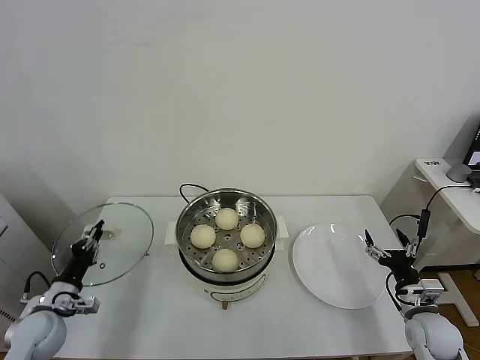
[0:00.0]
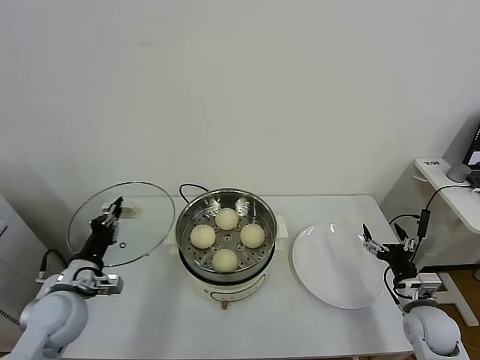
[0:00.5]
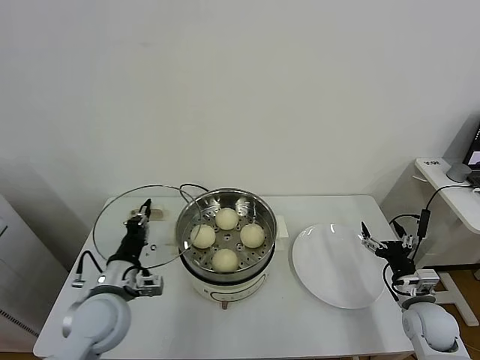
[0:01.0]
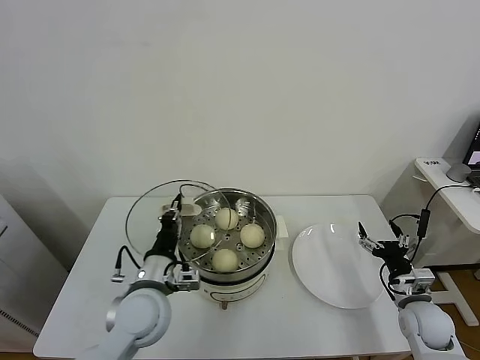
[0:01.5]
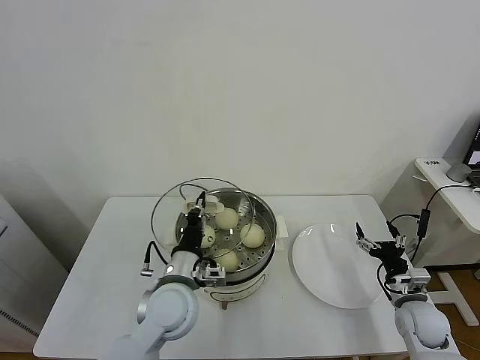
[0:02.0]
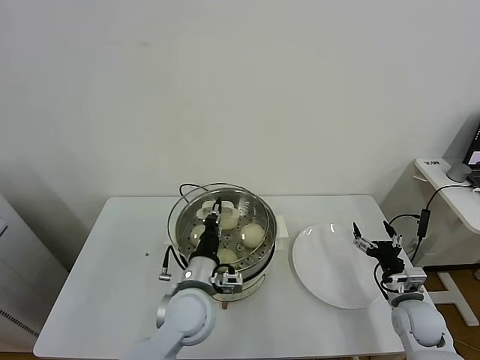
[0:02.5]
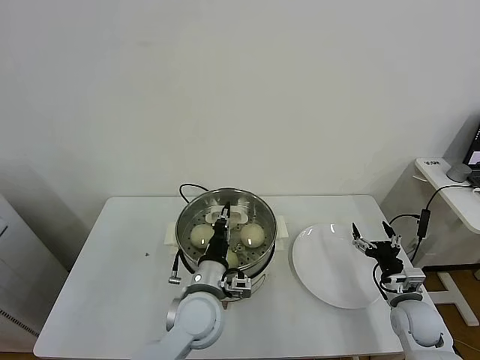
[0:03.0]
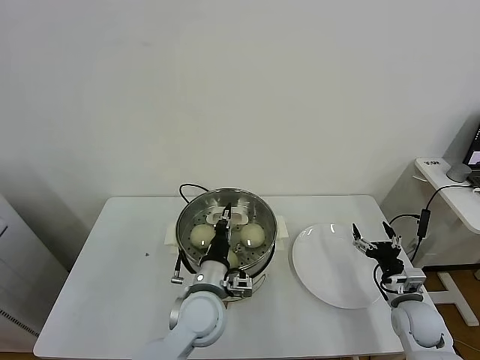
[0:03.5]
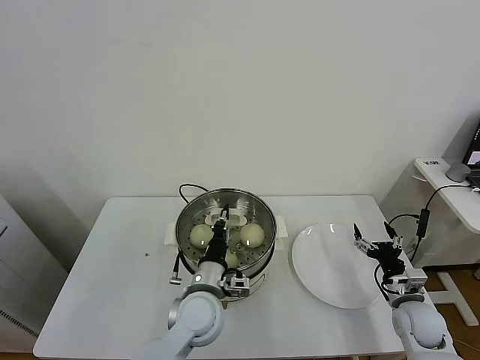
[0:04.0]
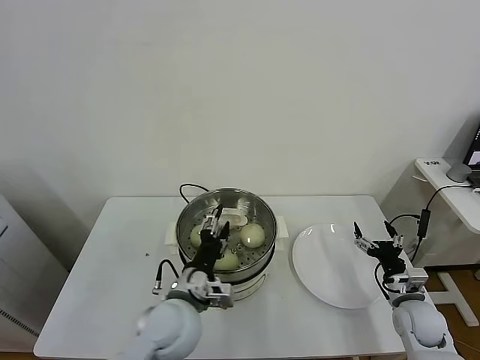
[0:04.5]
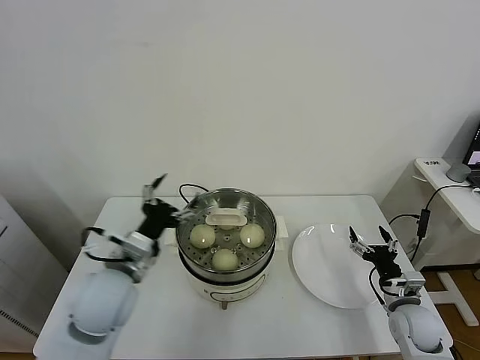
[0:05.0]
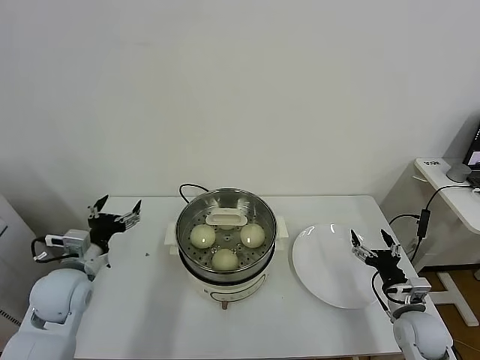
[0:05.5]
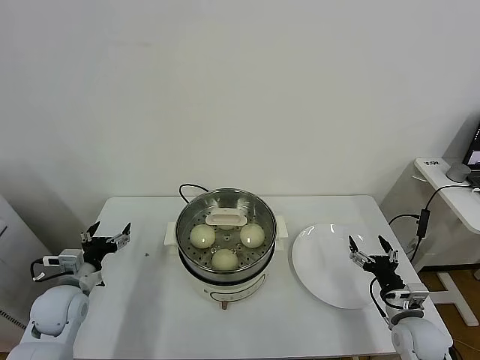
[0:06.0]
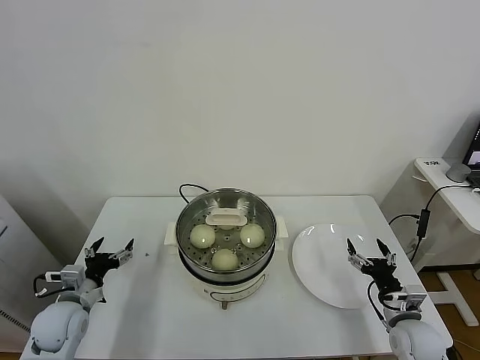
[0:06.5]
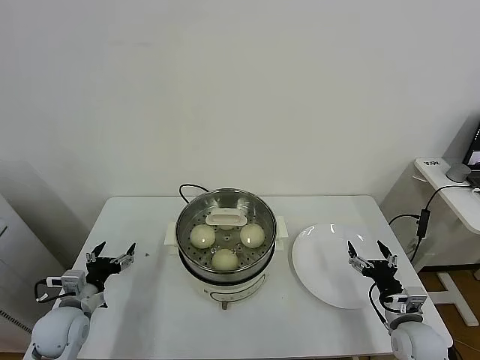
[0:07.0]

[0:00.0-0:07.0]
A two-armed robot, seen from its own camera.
Task of the whole recording: take steamed baozi put them in steamer.
Step, 0:00.0 to 0:04.5: Place the pot lid on the steamer with left gripper.
0:00.0 to 0:02.0: The left gripper goes about 30 cm to the right.
0:02.0 to 0:03.5: The left gripper moves to the right, roughly 5 cm.
0:03.5 to 0:05.0: The left gripper goes approximately 15 cm to the left and upward, and opens.
0:05.0 to 0:07.0: The left gripper goes roughly 25 cm to the left and downward.

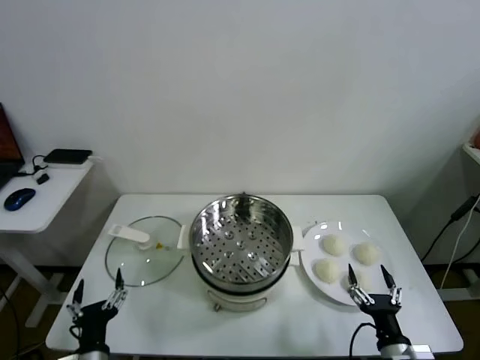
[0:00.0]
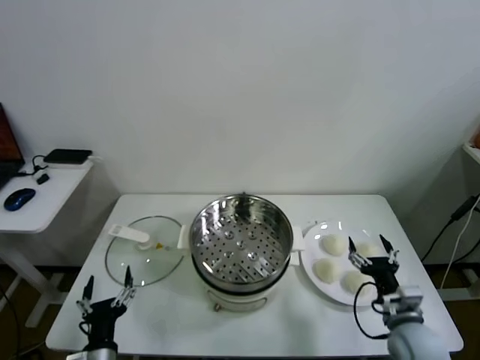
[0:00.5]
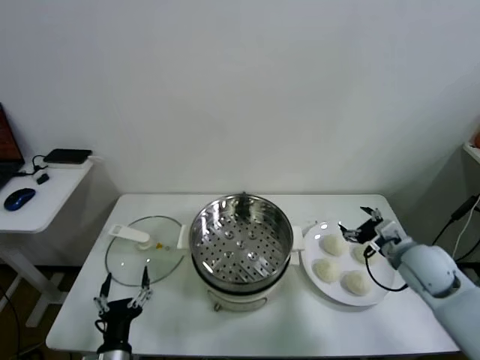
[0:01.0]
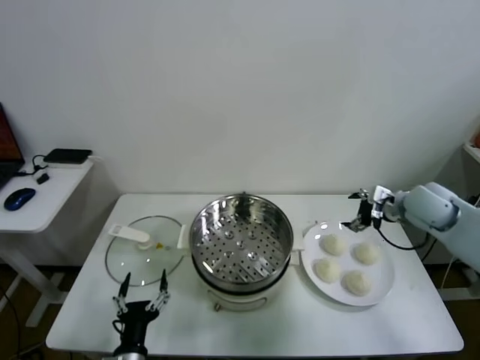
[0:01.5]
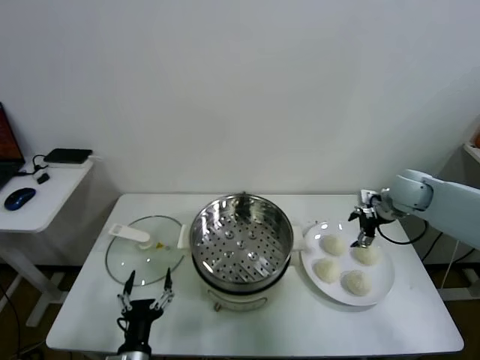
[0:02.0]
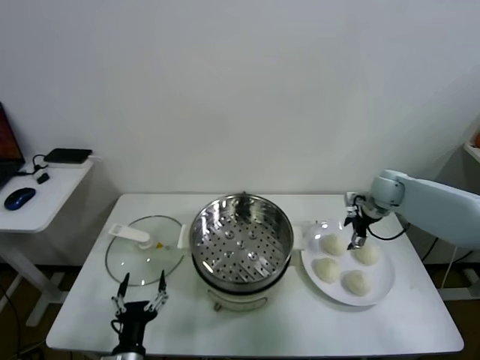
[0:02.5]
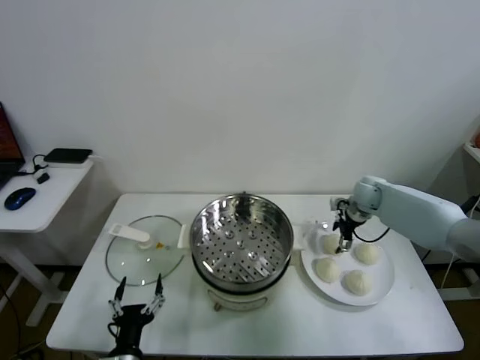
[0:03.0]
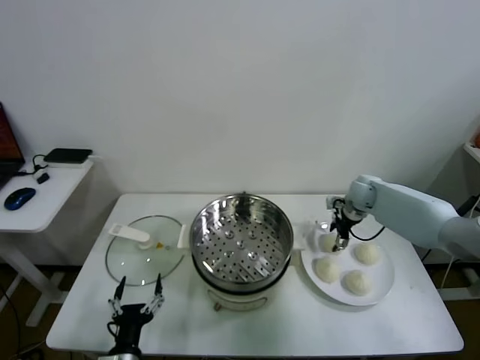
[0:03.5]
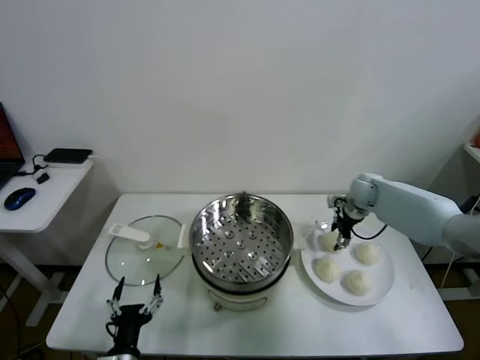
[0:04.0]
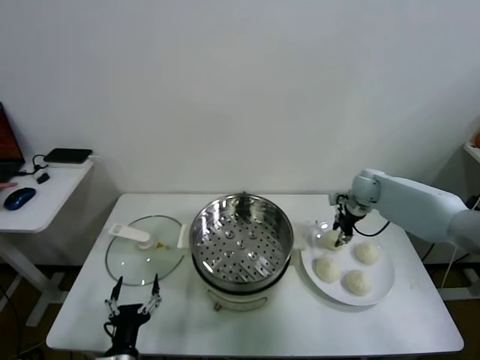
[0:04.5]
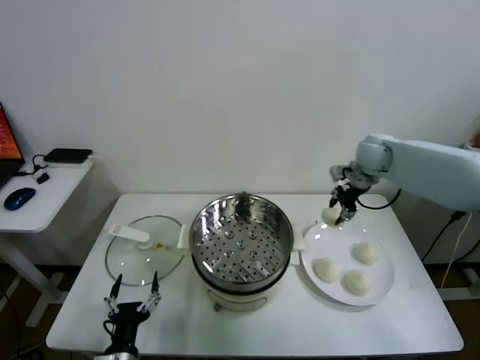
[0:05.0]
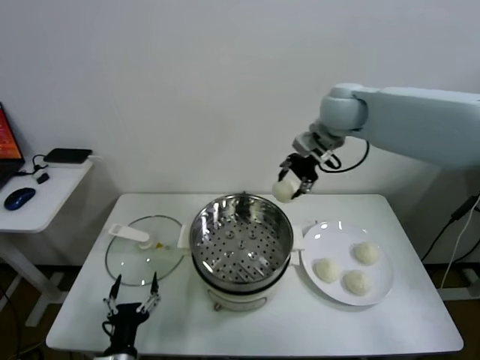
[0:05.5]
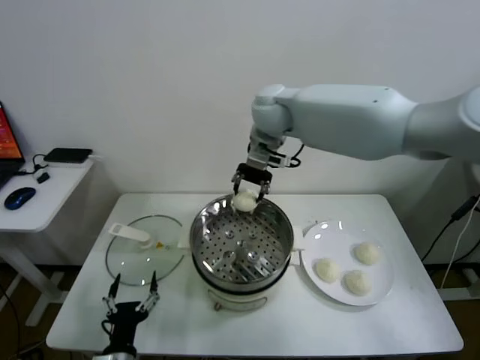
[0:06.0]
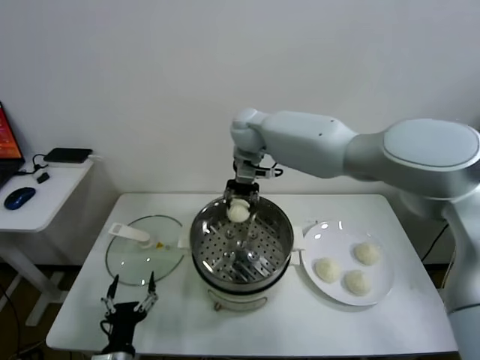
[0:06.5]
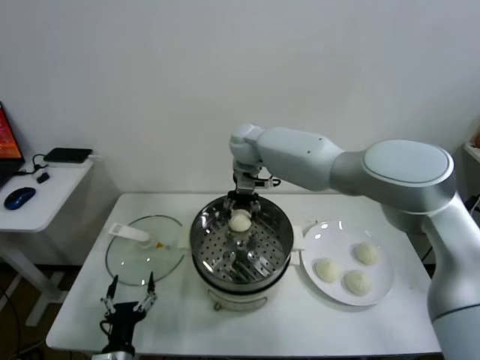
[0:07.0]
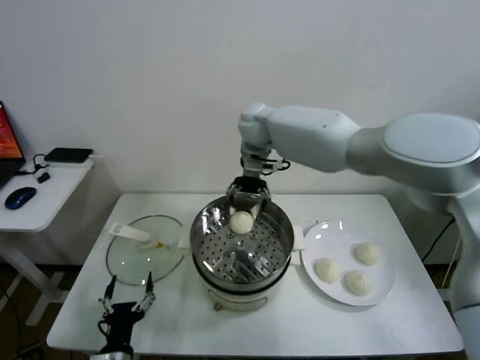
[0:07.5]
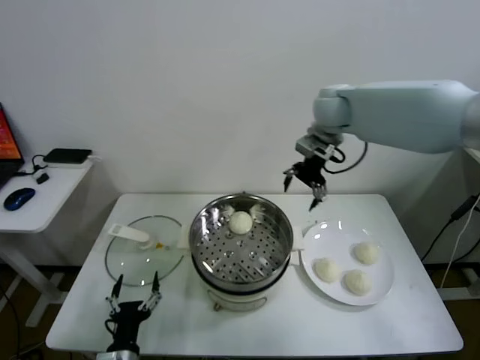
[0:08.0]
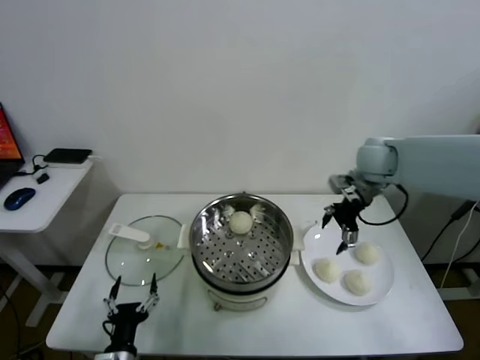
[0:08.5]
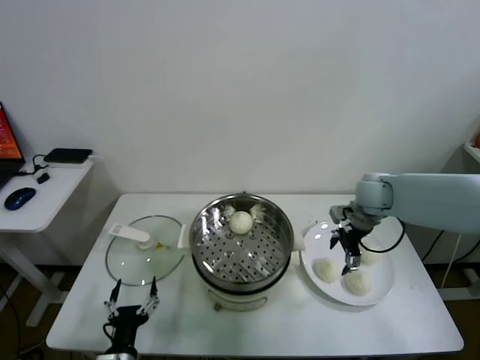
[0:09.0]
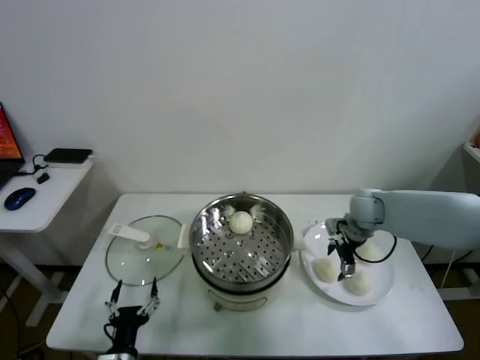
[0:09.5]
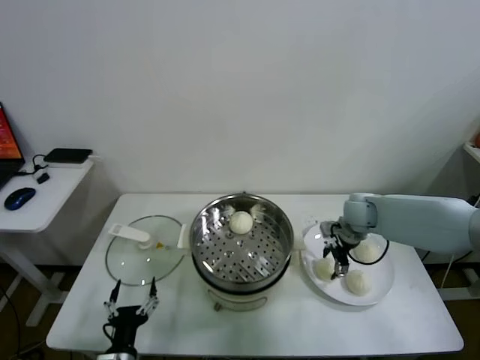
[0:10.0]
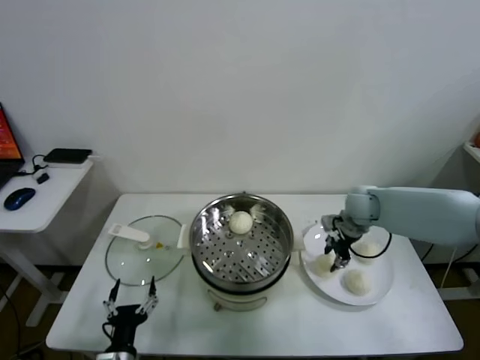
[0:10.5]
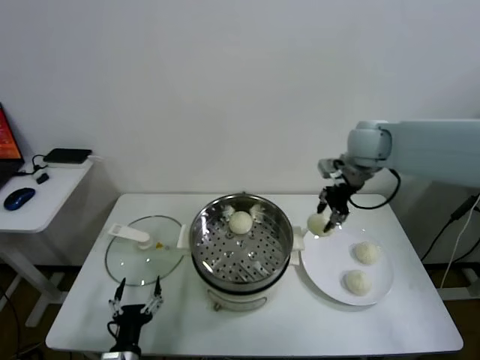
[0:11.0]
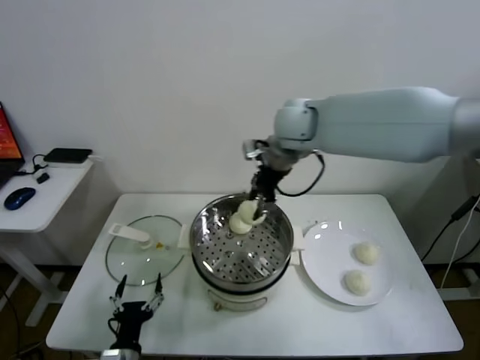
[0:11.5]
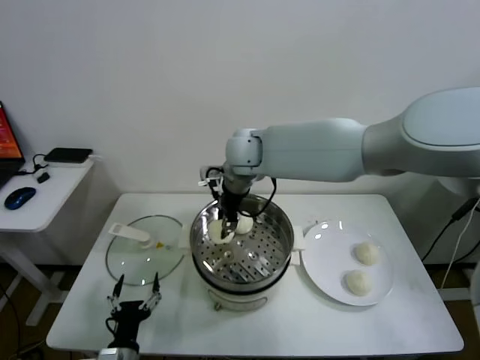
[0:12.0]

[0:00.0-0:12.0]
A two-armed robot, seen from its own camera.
Task of the whole recording: take steamed baozi put them in steamer.
Step, 0:00.0 to 0:04.0: Grasp the baozi in the plate with right gripper.
Step, 0:04.5 to 0:07.0: Place the baozi on the steamer with right gripper.
Step, 0:07.5 to 0:10.0: Grasp the baozi in the plate with right gripper.
0:02.0 to 0:04.0: The right gripper is displaced forward and downward by approximately 10 cm, and closes its fingers.
0:04.0 to 0:06.0: The right gripper shifts about 40 cm to the left and upward.
0:06.0 to 0:08.0: The right gripper is displaced to the right by roughly 20 cm, and opens.
0:08.0 to 0:10.0: The right gripper moves downward, some 25 cm.
0:10.0 to 0:12.0: The right gripper goes some 35 cm to the left and upward, and closes its fingers.

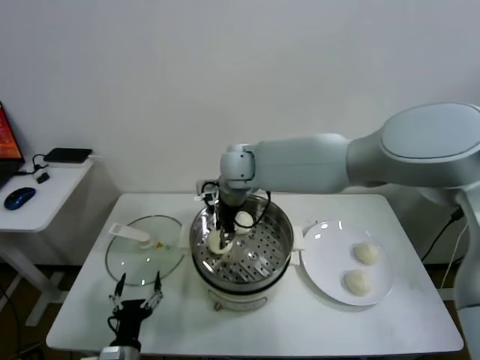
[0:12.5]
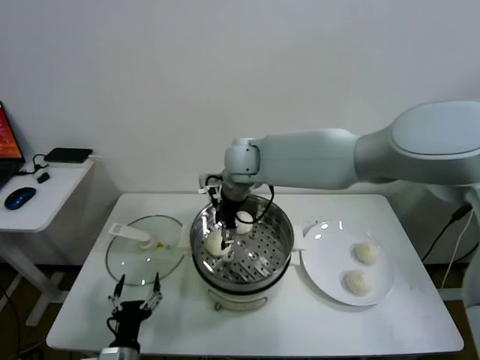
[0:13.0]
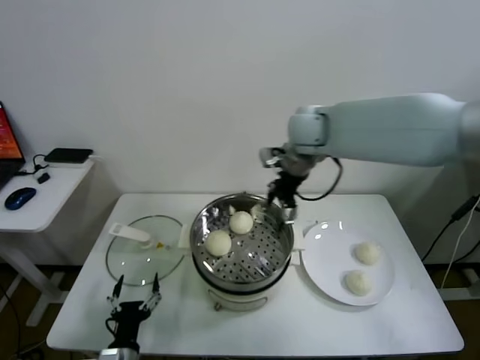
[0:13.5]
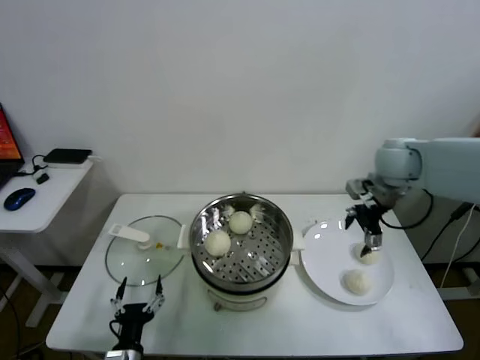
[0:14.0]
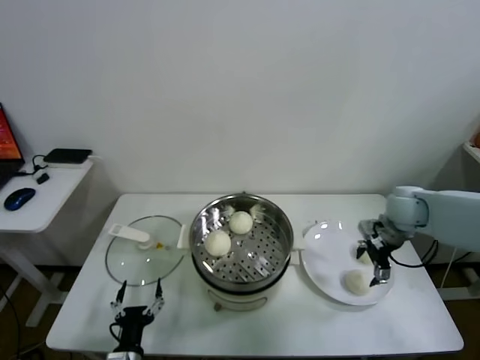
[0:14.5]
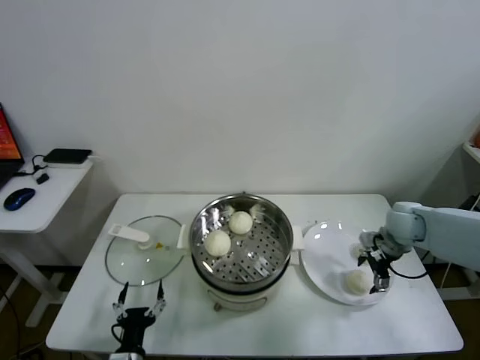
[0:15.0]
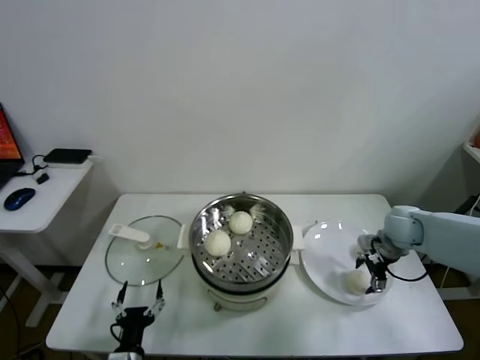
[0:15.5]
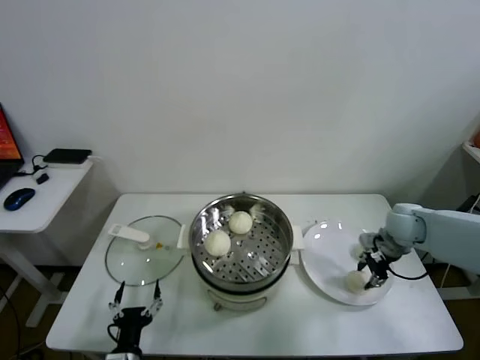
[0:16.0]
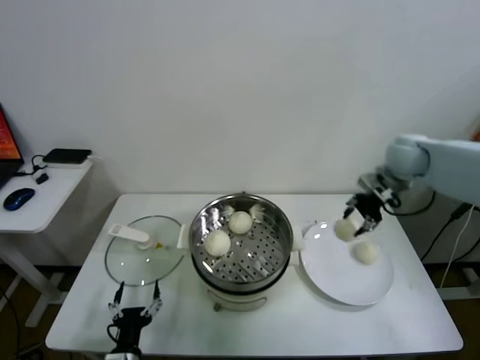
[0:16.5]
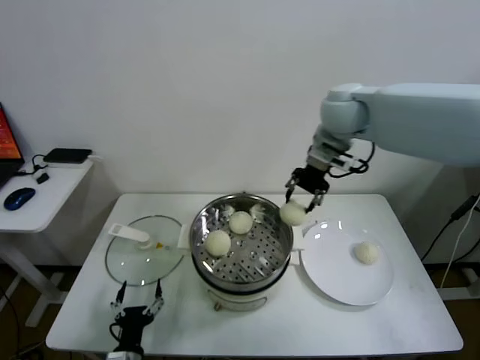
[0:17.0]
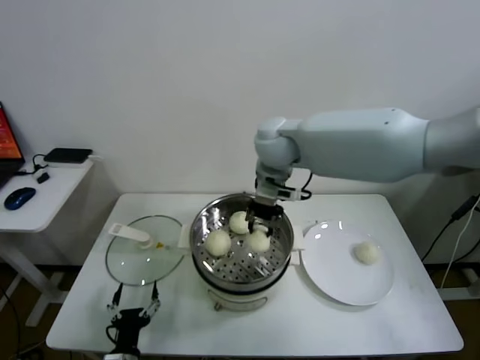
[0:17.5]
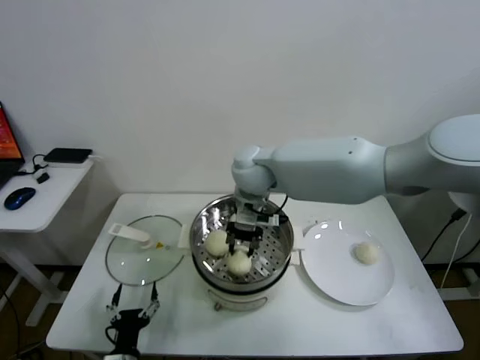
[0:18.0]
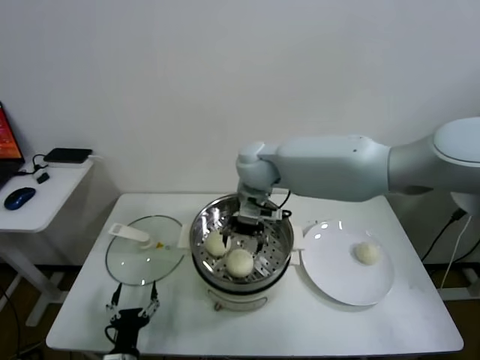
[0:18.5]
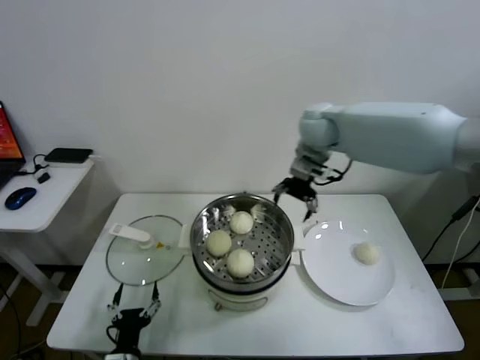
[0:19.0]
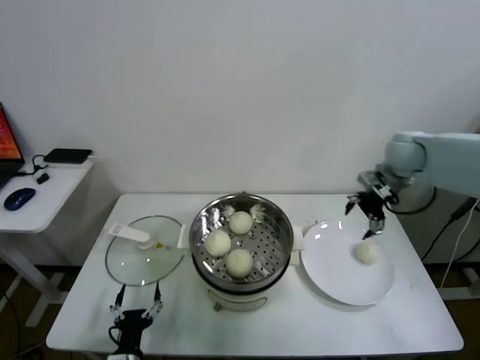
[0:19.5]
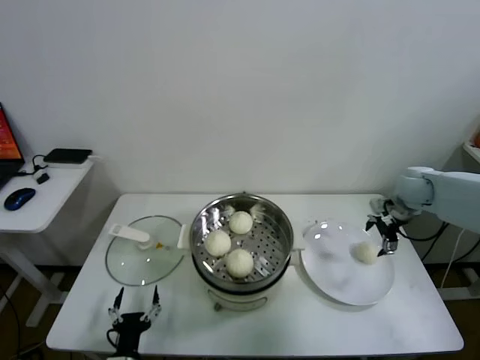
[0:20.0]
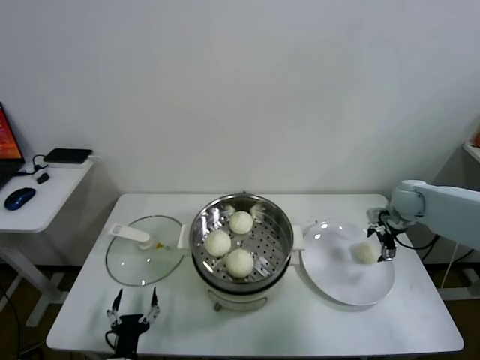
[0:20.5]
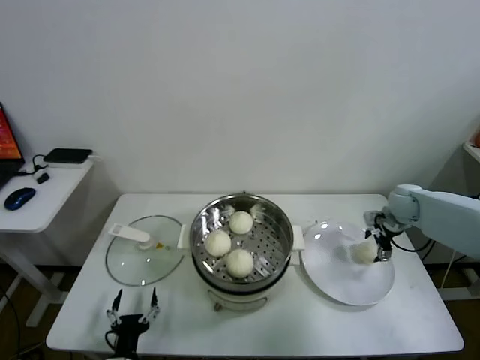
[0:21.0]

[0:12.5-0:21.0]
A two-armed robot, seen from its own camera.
Task of the whole recording: take steamed baozi put them in steamer.
Step, 0:13.0 to 0:15.5: Grasp the baozi in the plate with right gripper.
Step, 0:16.0 to 0:18.5: Place the baozi on the steamer with right gripper.
0:12.5 to 0:14.5: The right gripper goes approximately 40 cm to the right, and opens its fingers.
0:14.5 to 0:16.5: The right gripper shifts approximately 15 cm upward and forward, and closes its fingers.
0:16.5 to 0:19.0: The right gripper heads to the left, covering roughly 20 cm, and opens.
0:19.0 to 0:21.0: The right gripper goes some 35 cm to the right and downward.
